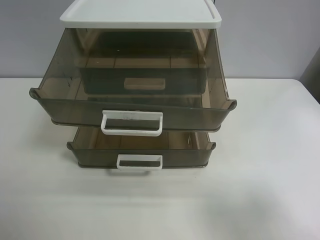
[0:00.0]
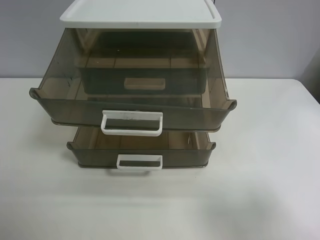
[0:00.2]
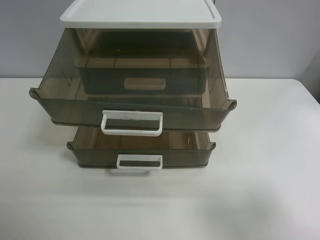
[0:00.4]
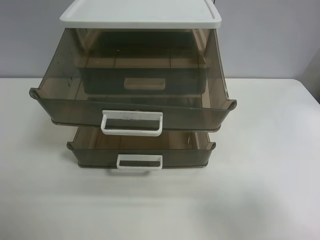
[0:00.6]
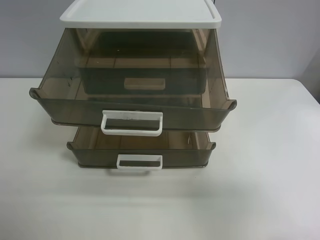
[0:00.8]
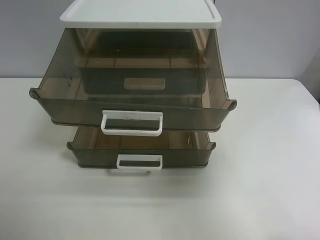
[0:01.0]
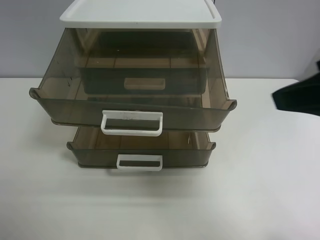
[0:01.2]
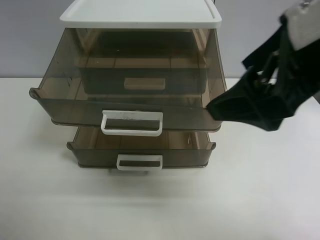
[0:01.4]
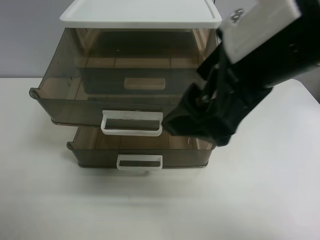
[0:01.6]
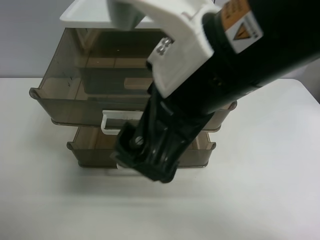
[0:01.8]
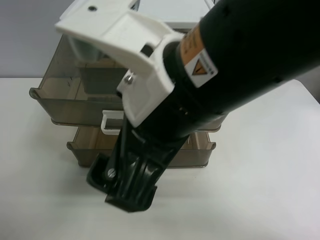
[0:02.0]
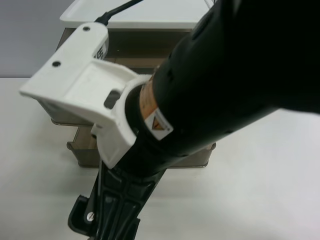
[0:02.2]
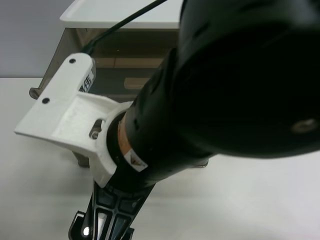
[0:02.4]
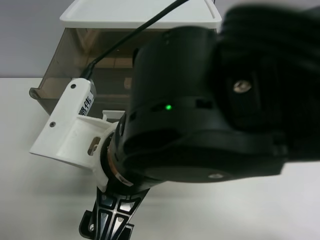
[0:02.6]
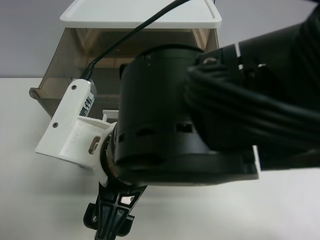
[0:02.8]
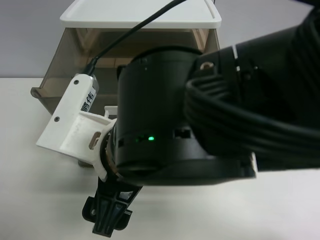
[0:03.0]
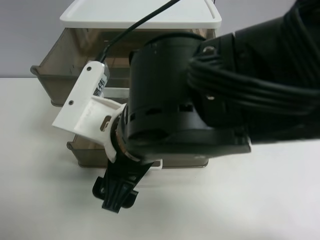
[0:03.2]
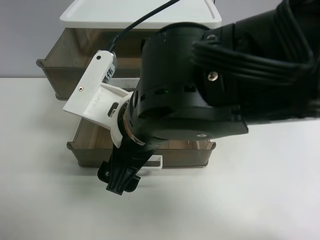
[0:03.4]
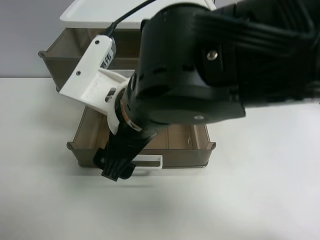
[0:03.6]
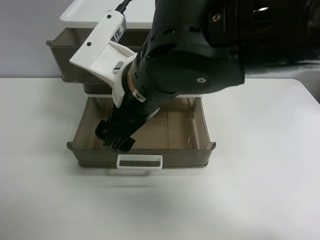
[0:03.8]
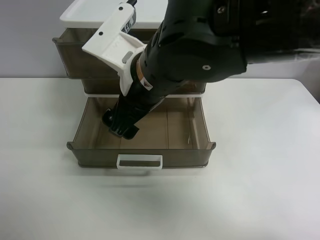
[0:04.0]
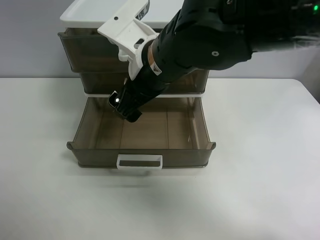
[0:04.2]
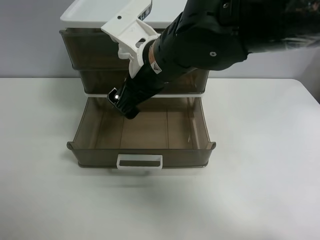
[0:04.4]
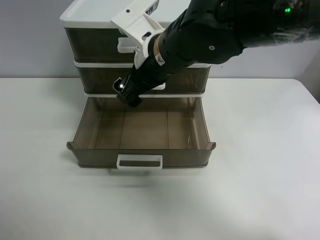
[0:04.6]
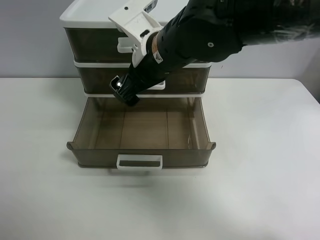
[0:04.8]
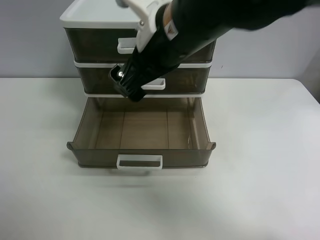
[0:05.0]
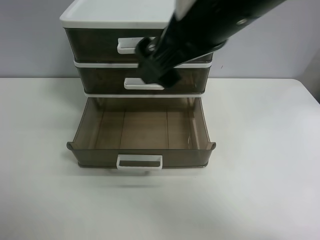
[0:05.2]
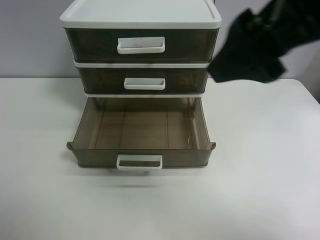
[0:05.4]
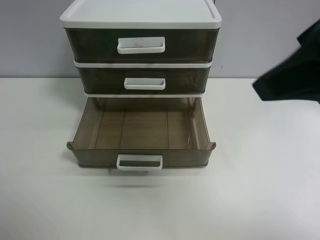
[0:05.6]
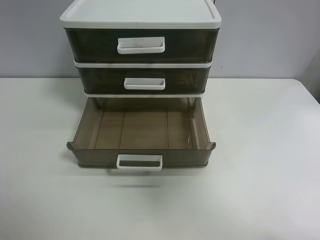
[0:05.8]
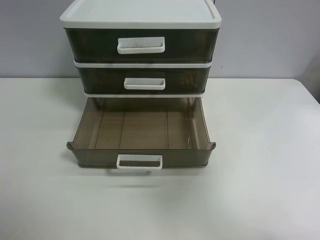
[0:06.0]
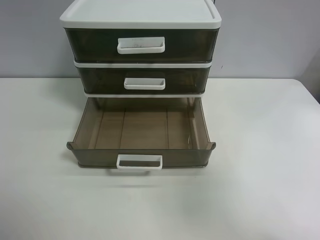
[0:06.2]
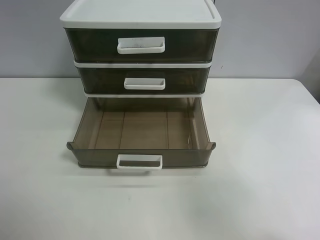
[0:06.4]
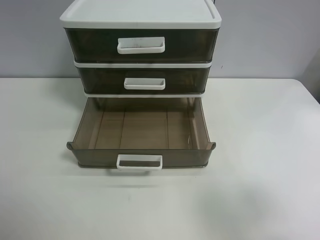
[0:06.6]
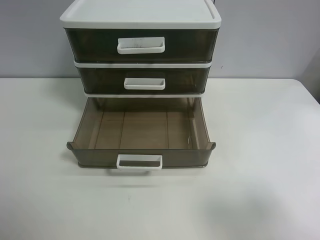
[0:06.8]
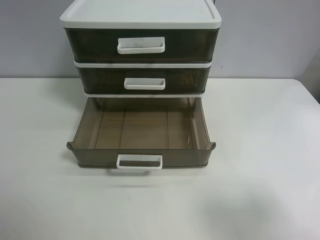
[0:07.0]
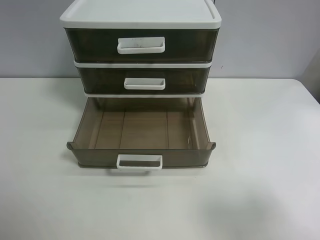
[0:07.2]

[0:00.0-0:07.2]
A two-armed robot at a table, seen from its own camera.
Task of the whole recording: close the top drawer.
Step, 0:00.0 to 0:02.8: Use the right gripper to touch the topmost layer of the storage cabinet.
Step, 0:03.0 to 0:04.8: Push the top drawer closed.
0:00.0 to 0:01.4: The right gripper goes some 25 cm to the left, forward and upward.
0:01.4 to 0:02.8: The right gripper is displaced to the left and downward by roughly 20 cm.
0:02.8 to 0:04.4: The right gripper travels forward by some 15 cm.
0:04.4 to 0:05.8: The right gripper travels to the right, backward and upward by about 35 cm.
0:05.8 to 0:07.2: The right gripper moves downward, backward and to the right, roughly 15 cm.
